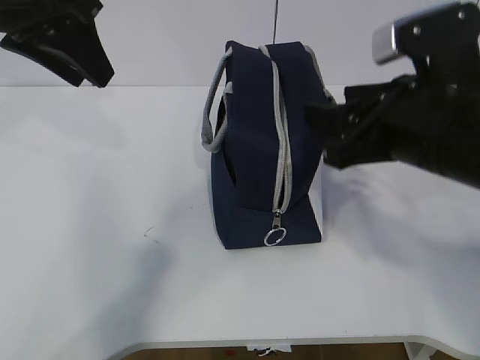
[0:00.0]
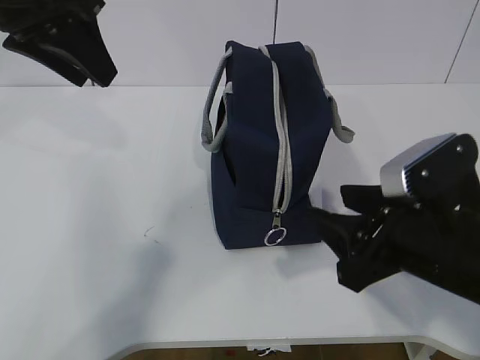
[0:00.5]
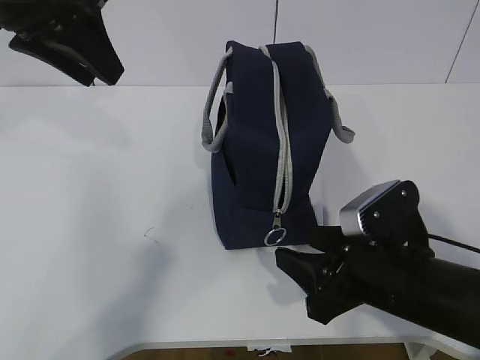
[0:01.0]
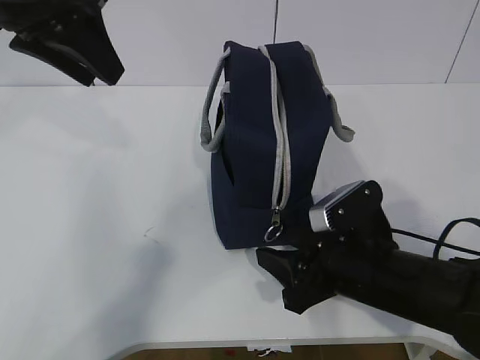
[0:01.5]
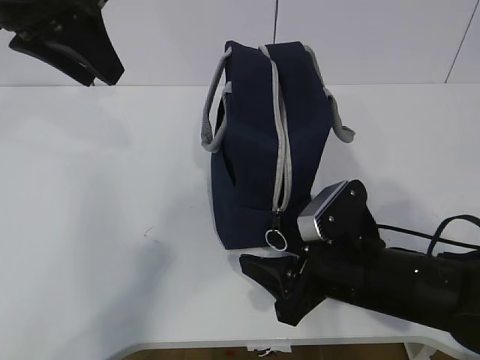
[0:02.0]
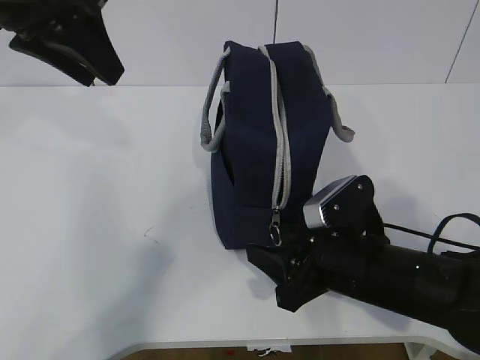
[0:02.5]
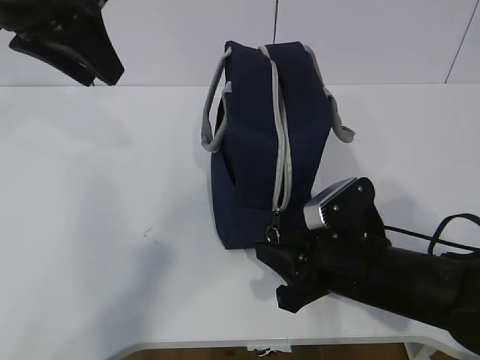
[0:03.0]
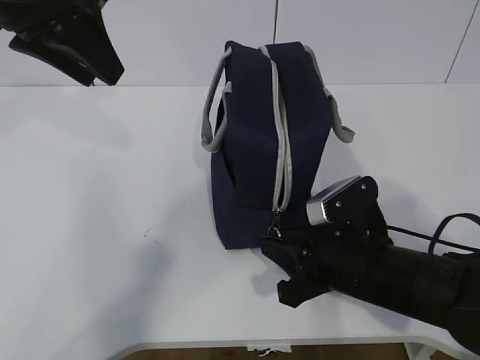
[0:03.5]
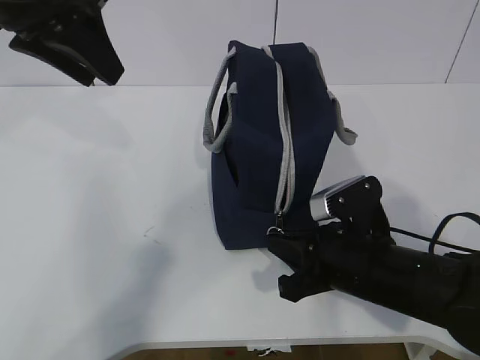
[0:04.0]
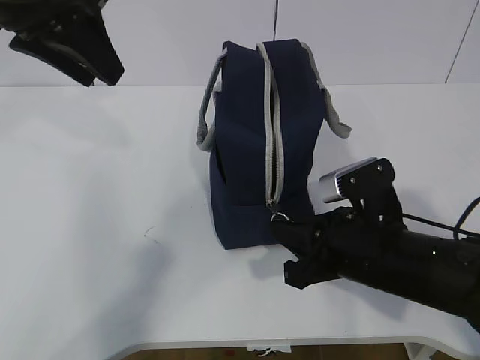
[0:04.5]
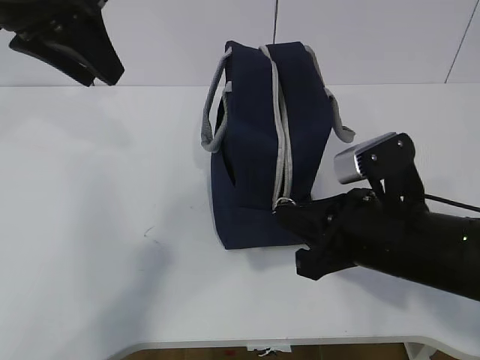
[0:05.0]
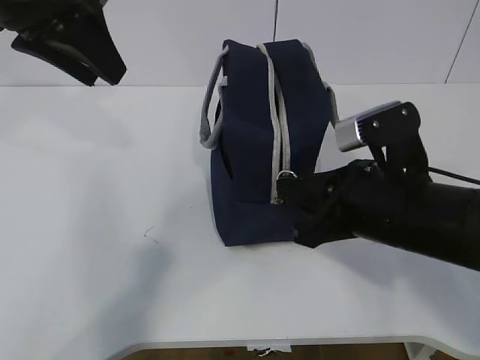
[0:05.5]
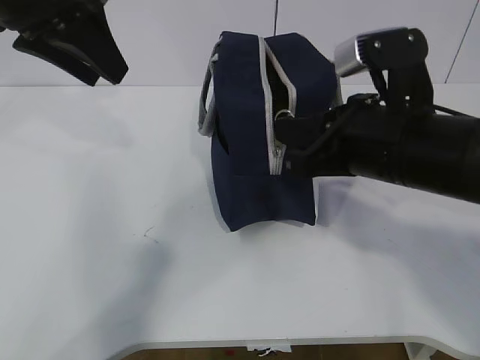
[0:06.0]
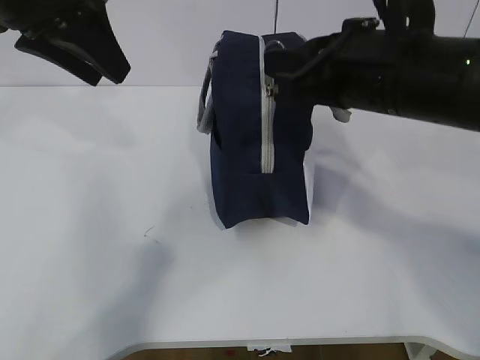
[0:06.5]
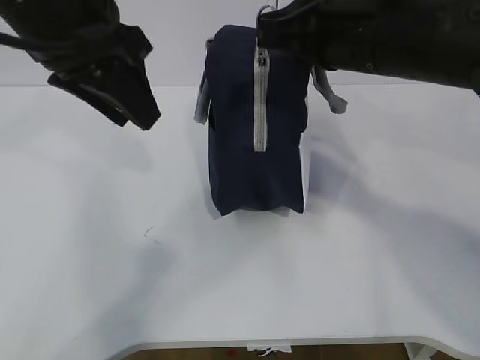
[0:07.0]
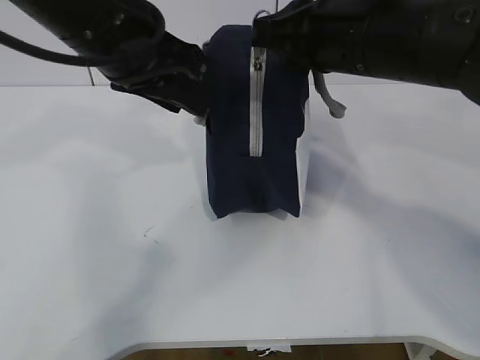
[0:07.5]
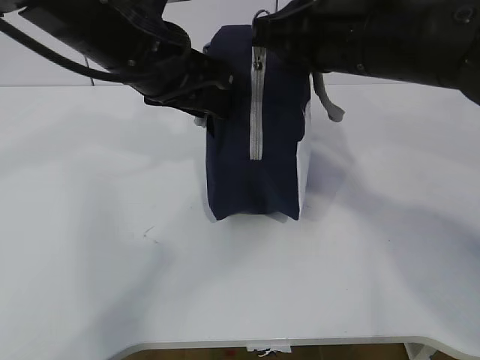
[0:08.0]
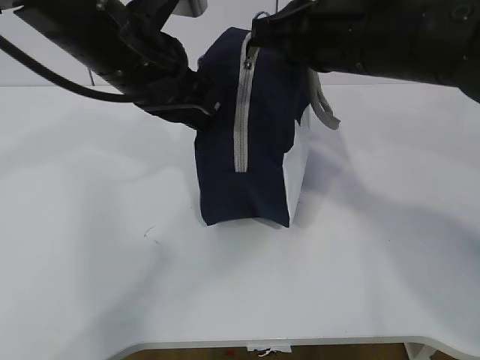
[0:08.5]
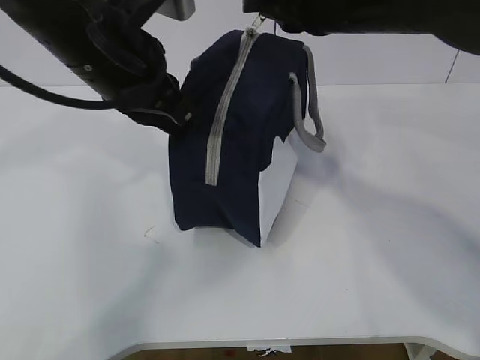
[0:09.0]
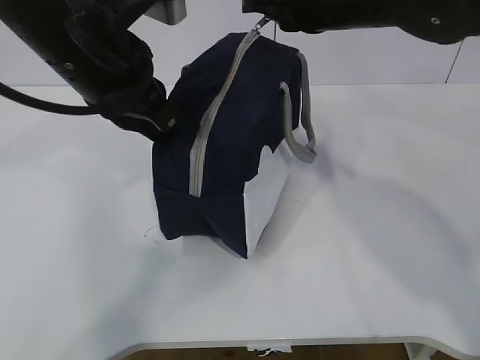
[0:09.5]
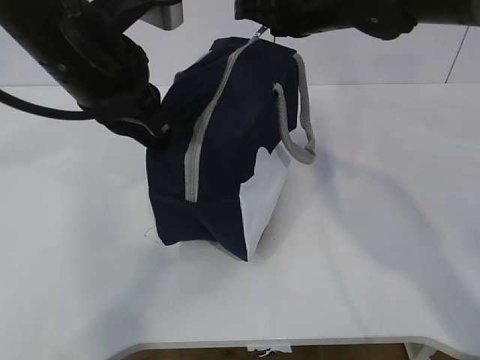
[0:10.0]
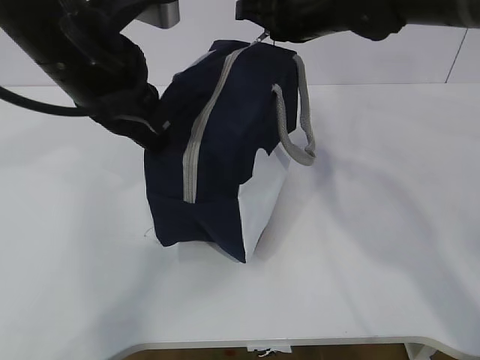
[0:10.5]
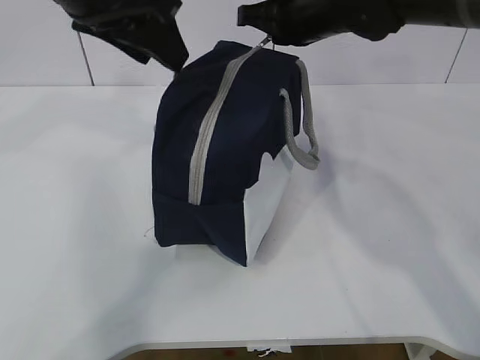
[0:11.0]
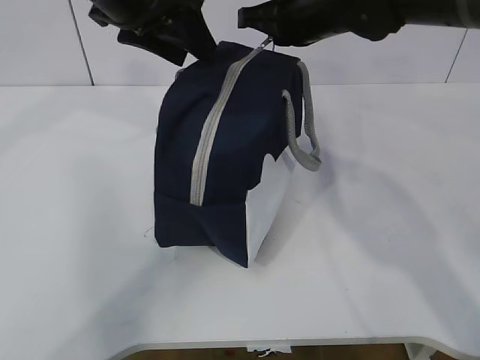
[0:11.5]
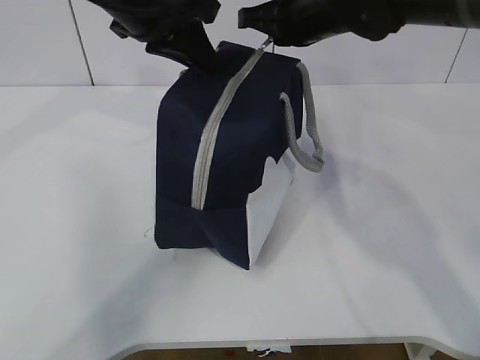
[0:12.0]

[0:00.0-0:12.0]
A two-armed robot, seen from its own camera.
Step, 4.0 to 8.5 s: Pull the zipper with your right hand.
Step, 9.0 to 9.5 s: Grab the lunch bag with your left hand.
0.0 to 2.0 s: The right gripper shifts roughly 15 cm downward.
2.0 to 4.0 s: The right gripper closes up.
4.0 to 6.0 s: The right gripper shifts about 15 cm upward.
6.0 to 8.0 s: The left gripper shifts about 10 cm to the right and downward. Meanwhile the right gripper shifts some 10 cm upward and forward.
8.0 to 10.0 s: The left gripper closes up; the right gripper shifts some 10 cm forward.
10.0 to 12.0 s: The left gripper shifts approximately 10 cm forward, and opens and closes again.

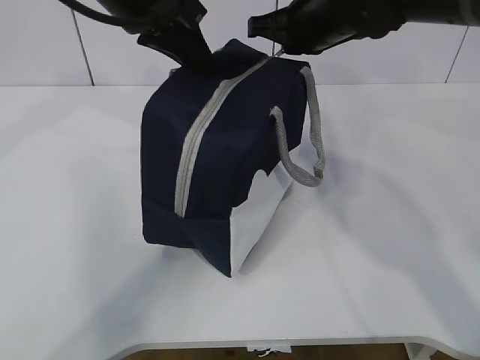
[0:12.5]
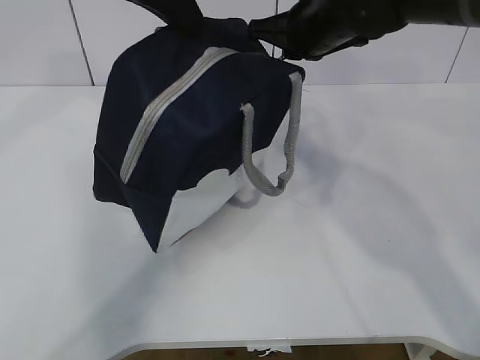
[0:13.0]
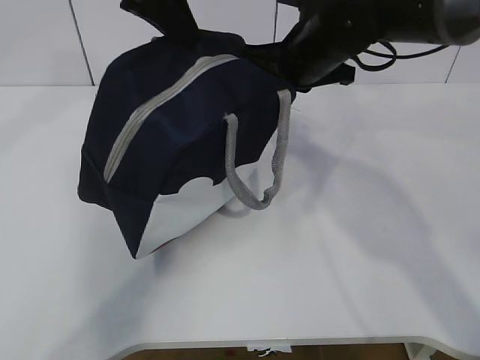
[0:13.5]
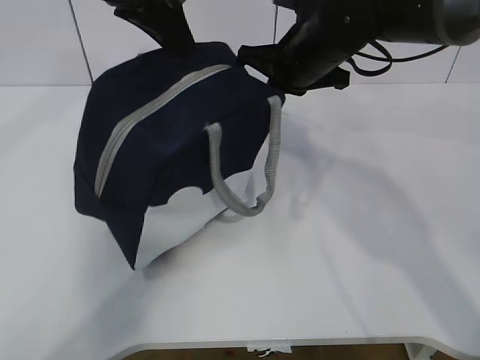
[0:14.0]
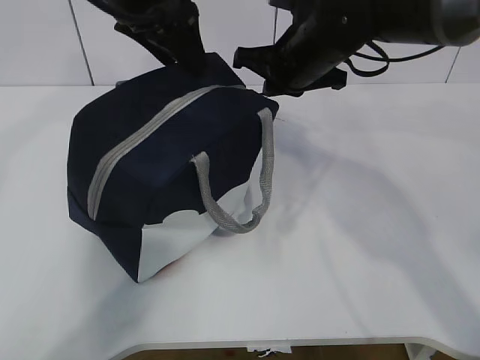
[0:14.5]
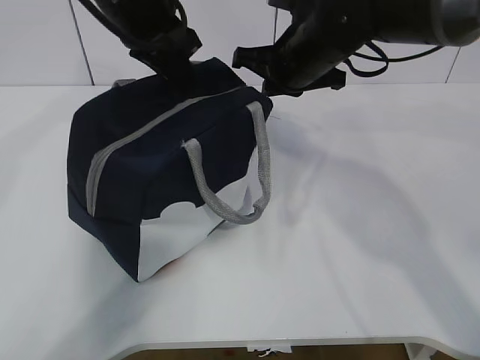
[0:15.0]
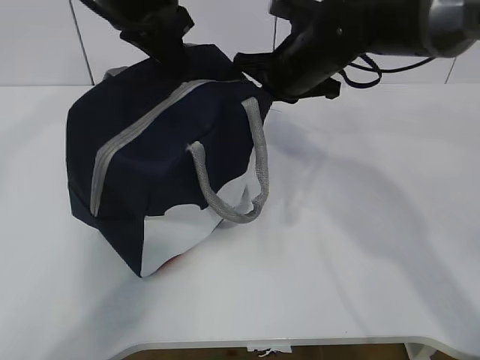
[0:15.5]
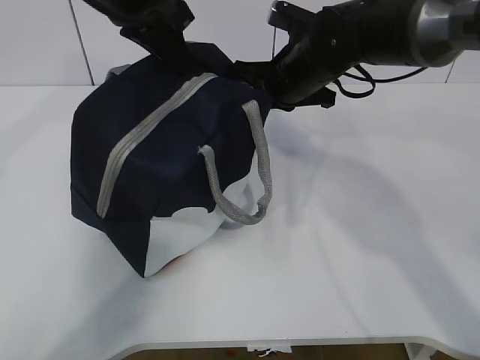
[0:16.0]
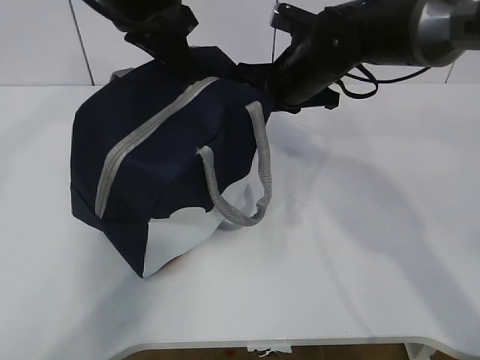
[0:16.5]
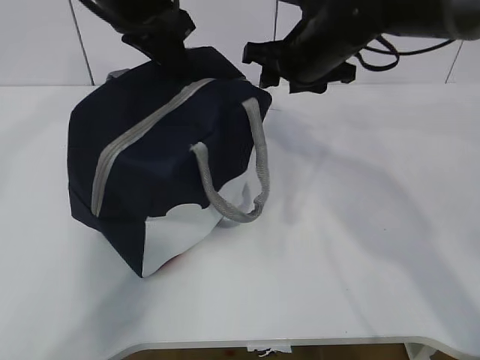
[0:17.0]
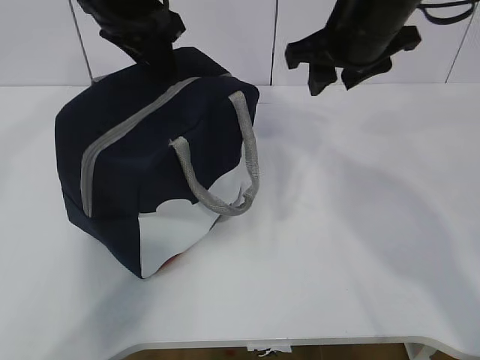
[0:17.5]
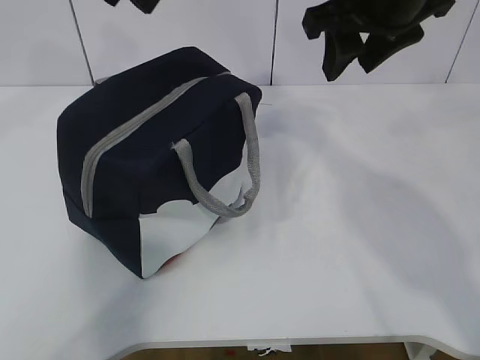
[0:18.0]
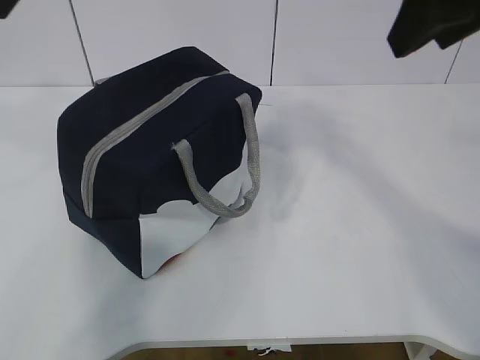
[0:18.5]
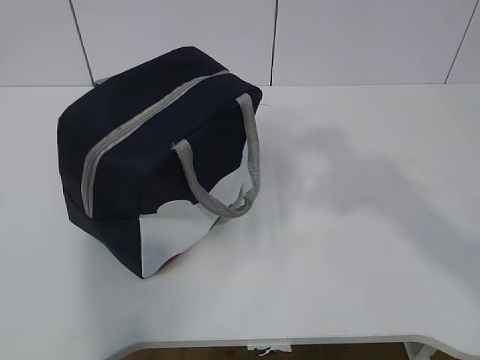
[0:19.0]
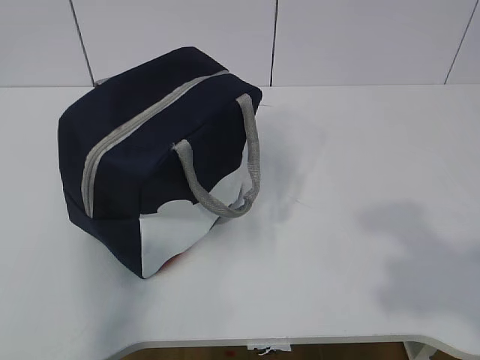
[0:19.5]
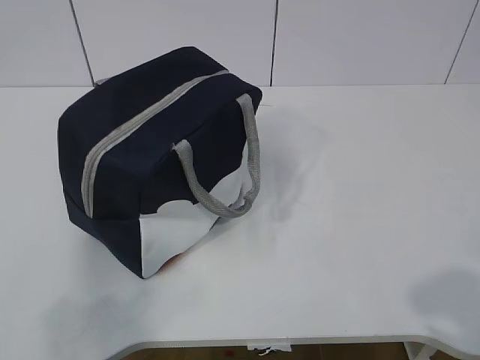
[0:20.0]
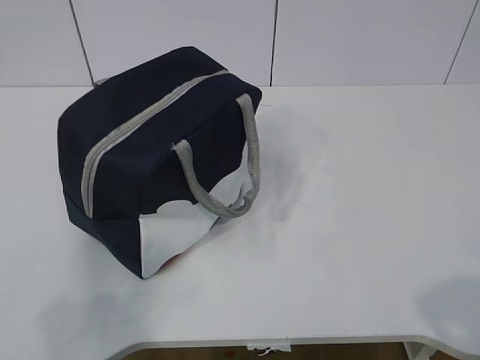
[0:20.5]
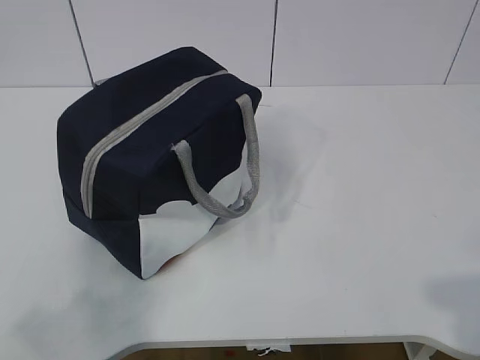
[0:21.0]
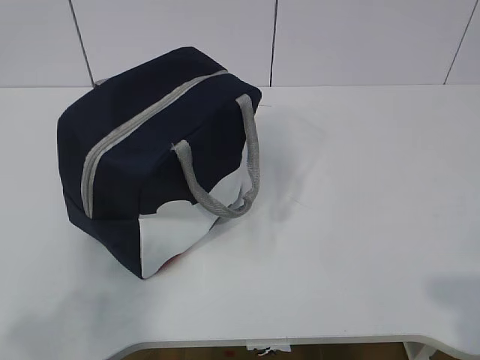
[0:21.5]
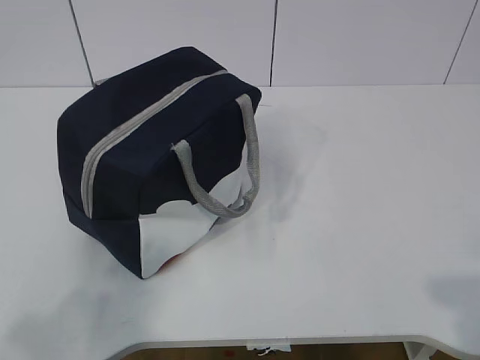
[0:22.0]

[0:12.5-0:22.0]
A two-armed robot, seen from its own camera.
12.5 to 14.5 s: The left gripper opens.
14.5 to 16.5 s: The left gripper closes up.
16.5 to 18.0 s: The right gripper goes about 15 cm upward and backward, and opens. The left gripper heads upward, covering some 5 cm, and opens its fingers.
18.0 to 20.0 s: The left gripper heads backward and to the left, covering some 40 cm; the right gripper goes about 40 cm backward and to the right.

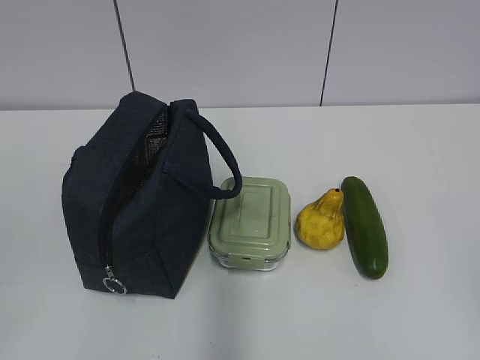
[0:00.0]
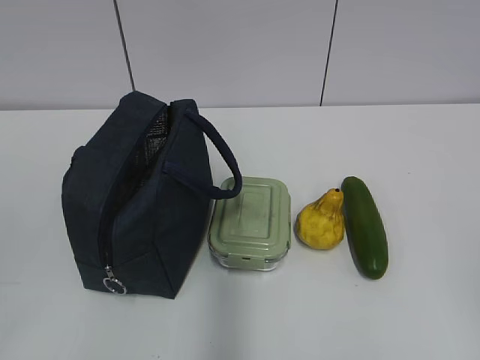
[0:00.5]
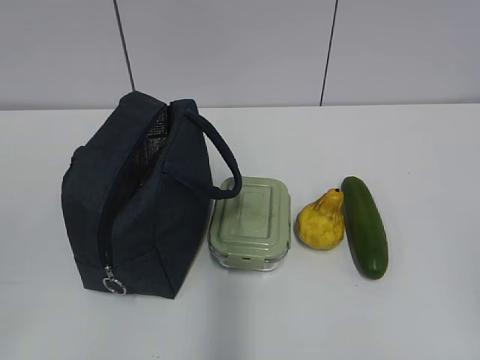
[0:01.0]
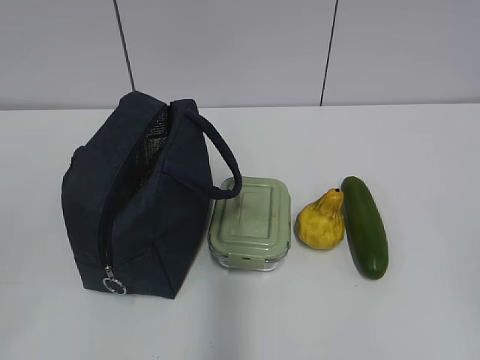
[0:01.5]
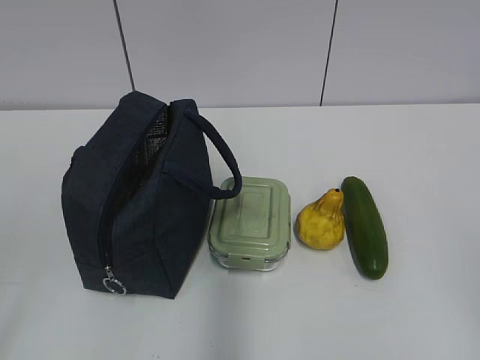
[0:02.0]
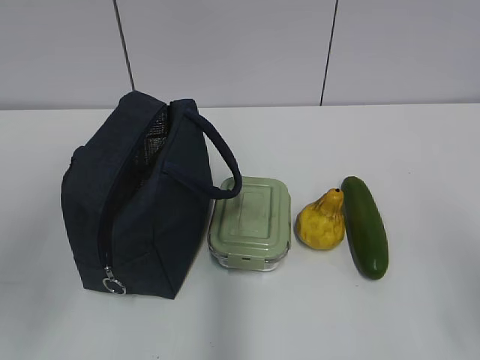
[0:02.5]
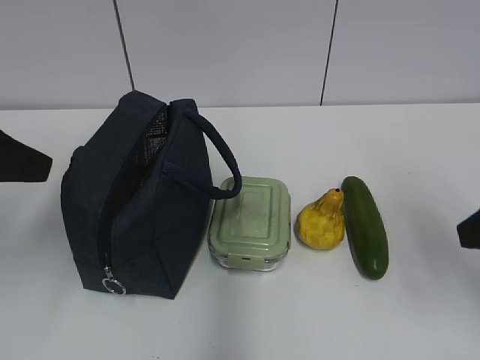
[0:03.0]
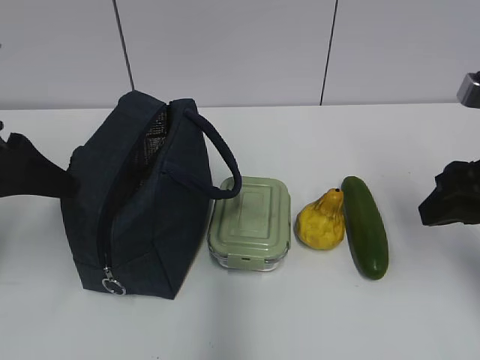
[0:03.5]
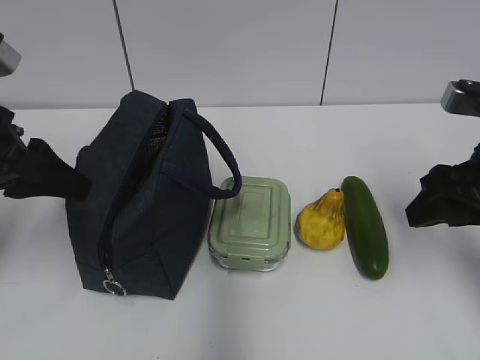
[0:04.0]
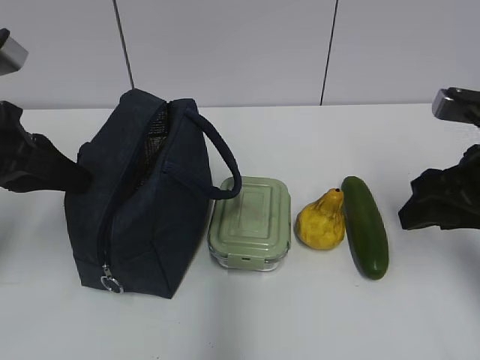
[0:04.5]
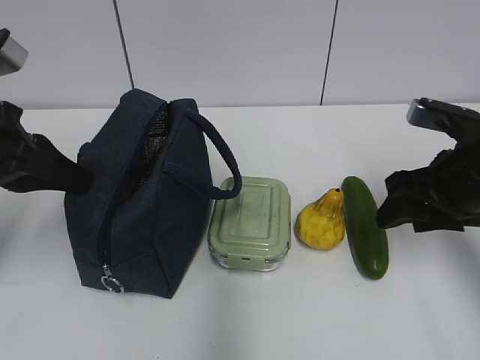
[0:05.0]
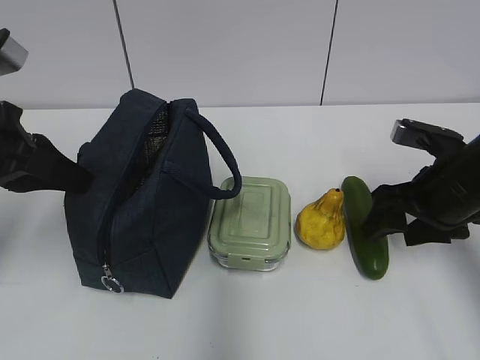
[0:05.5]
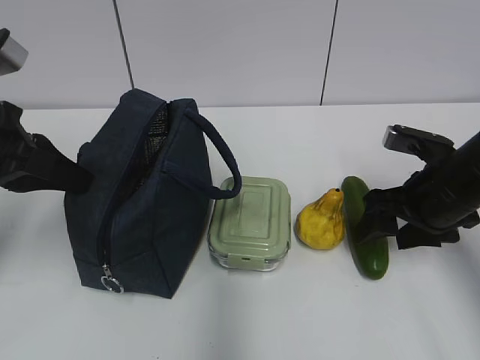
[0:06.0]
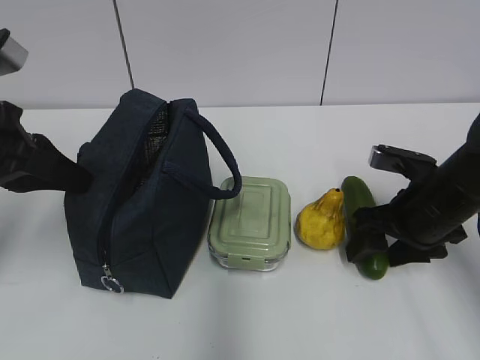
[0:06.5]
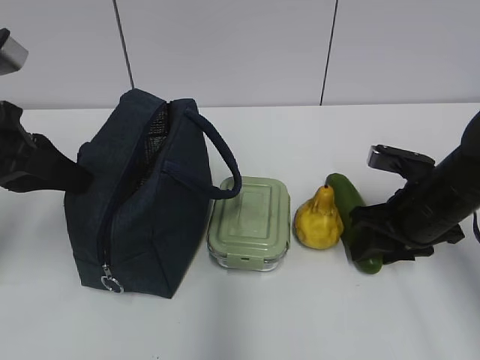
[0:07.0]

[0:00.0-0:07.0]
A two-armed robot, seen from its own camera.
2.0 to 3.5 s: The two grippers go roughly 25 cm forward.
3.5 to 5.0 s: The left gripper closes its fingers. Meanwhile the right gripper goes some 5 cm forward and downward.
5.0 to 7.0 s: The right gripper goes about 5 cm downward.
